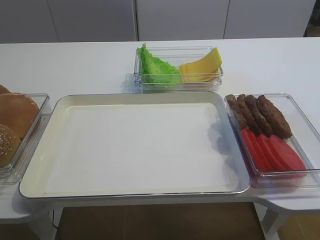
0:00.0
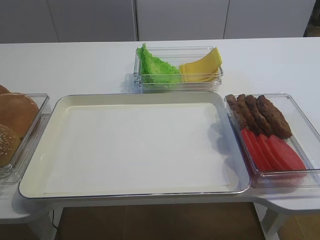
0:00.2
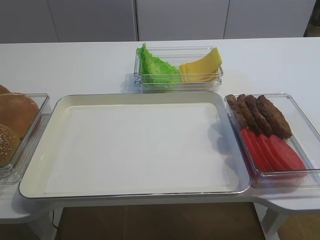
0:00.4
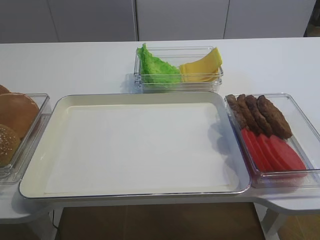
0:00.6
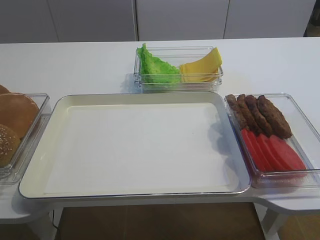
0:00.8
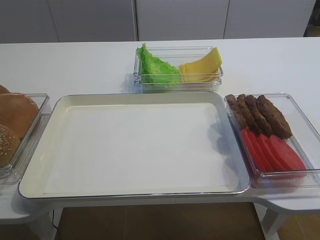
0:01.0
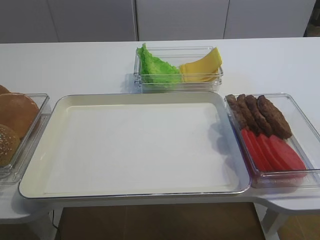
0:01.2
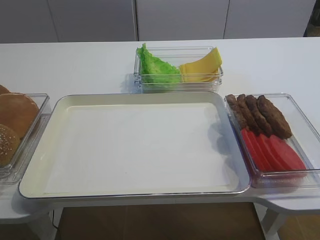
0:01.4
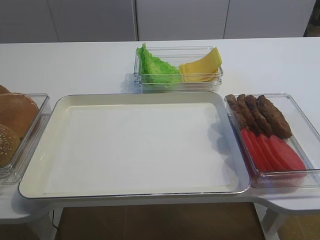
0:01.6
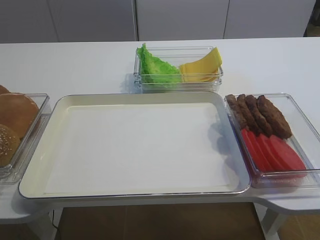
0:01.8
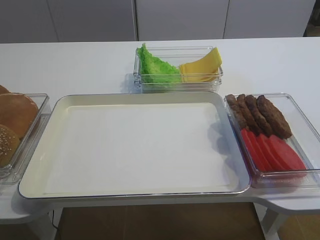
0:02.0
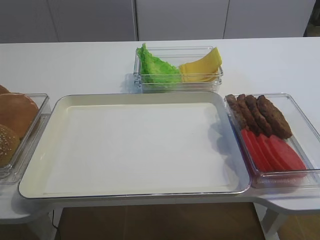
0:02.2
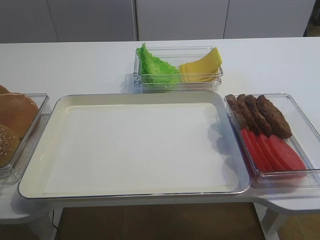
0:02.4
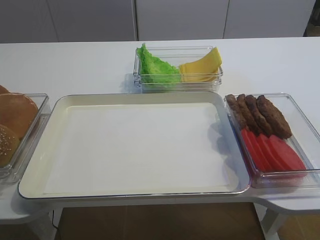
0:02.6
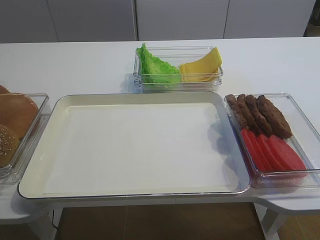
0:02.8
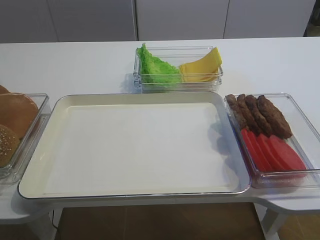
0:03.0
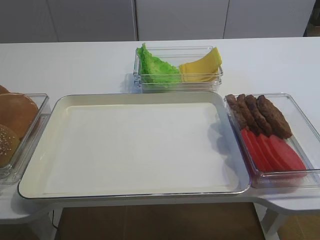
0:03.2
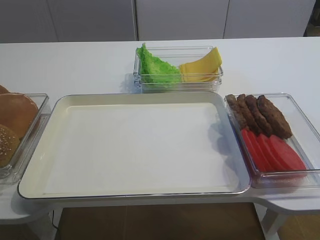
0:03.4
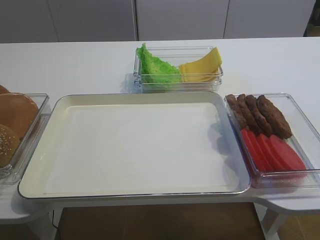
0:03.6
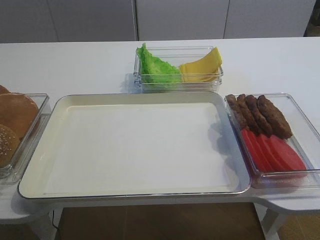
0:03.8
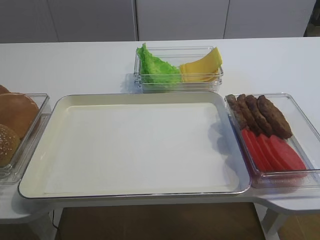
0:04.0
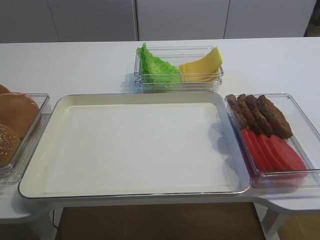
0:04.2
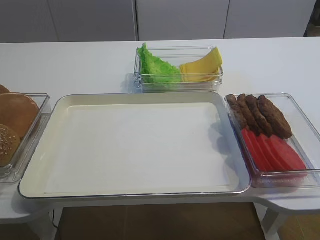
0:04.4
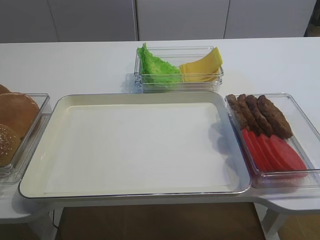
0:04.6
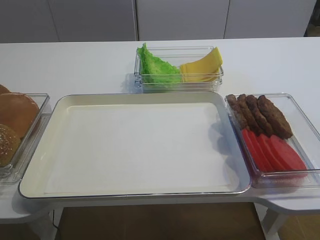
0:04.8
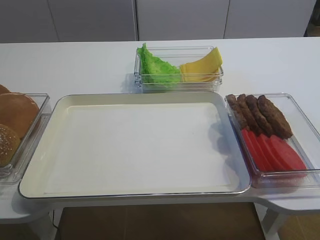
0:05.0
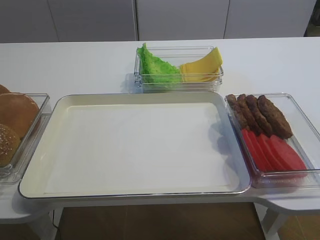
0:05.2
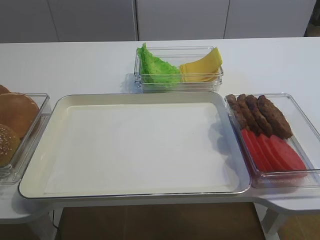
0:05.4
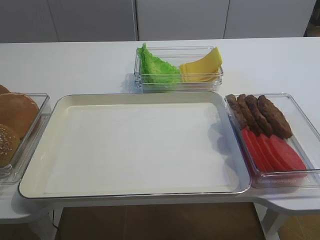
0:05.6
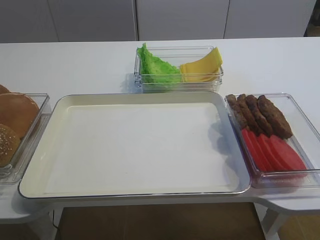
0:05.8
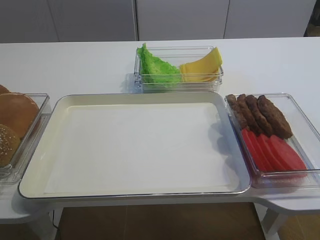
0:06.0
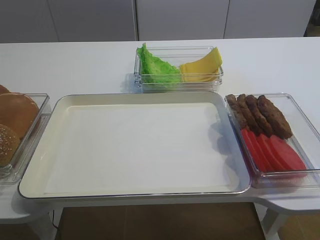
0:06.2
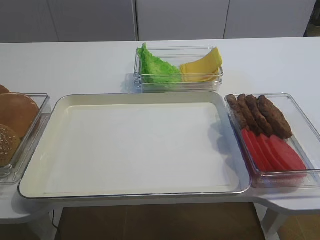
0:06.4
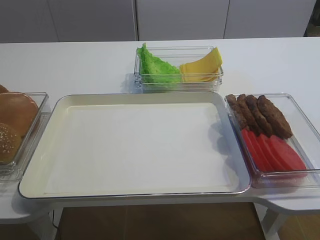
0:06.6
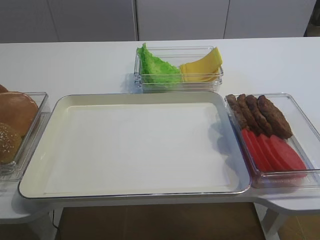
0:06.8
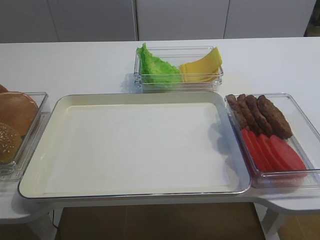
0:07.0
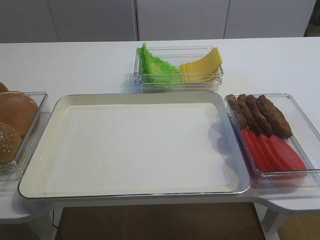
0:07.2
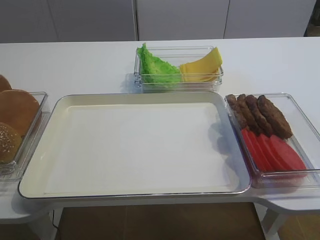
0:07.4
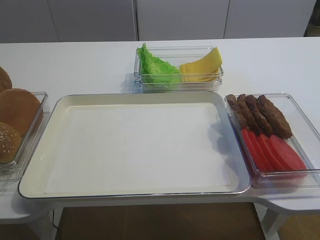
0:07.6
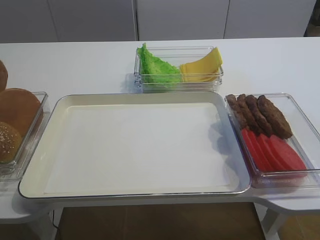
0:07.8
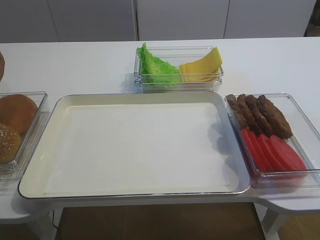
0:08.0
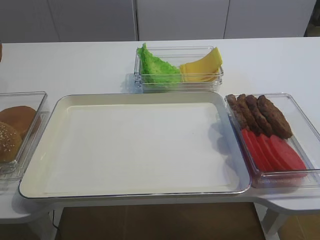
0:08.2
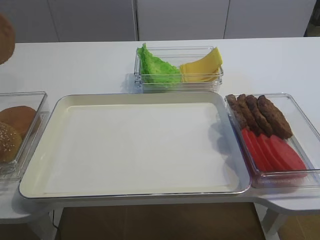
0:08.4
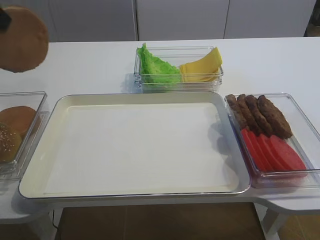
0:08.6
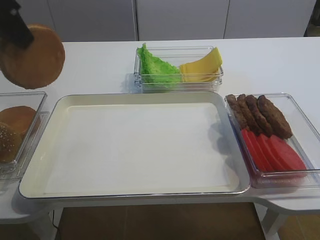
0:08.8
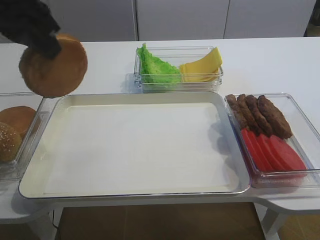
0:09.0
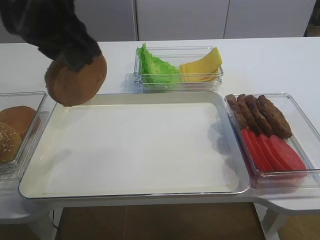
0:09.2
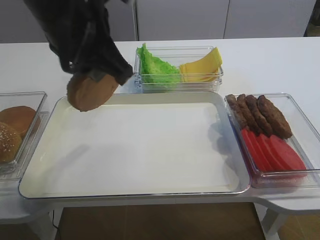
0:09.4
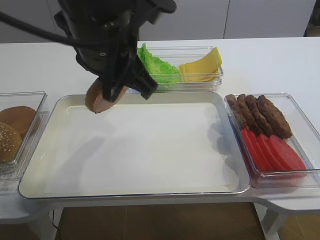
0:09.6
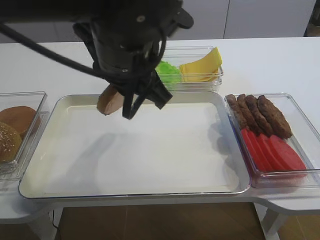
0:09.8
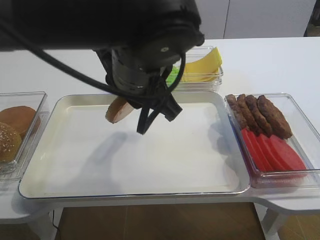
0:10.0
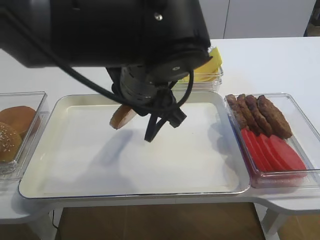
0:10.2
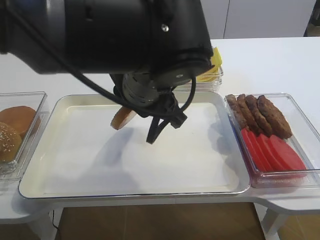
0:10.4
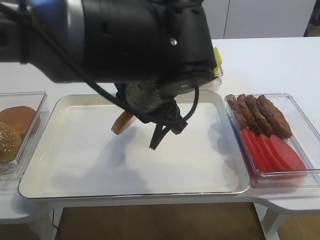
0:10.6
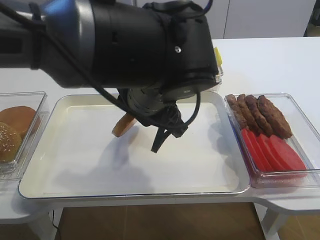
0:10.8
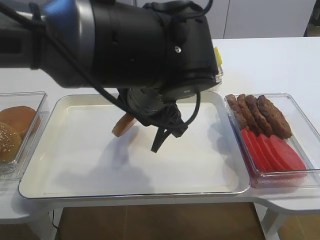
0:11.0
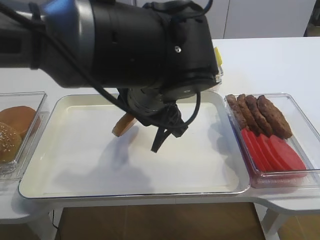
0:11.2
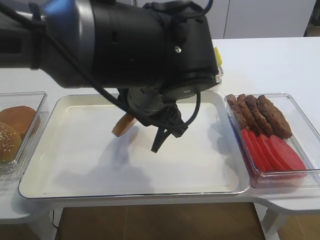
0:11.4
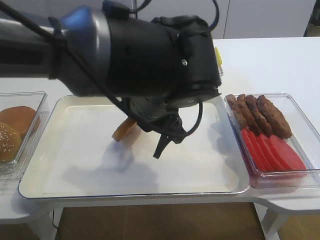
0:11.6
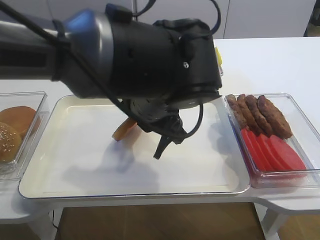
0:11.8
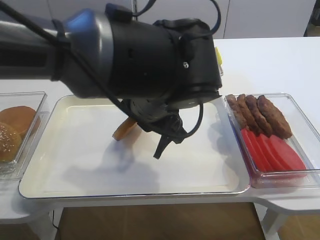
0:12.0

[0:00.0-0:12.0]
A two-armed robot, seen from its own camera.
0:06.0 to 0:07.6: The left gripper closes.
0:07.6 to 0:09.0: The left gripper moves to the right, upward and backward, roughly 20 cm.
0:09.0 to 0:10.4: The left gripper heads to the right and downward, covering some 20 cm.

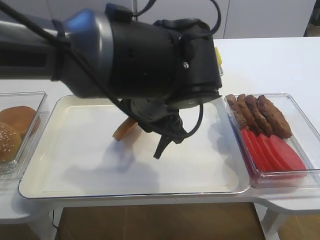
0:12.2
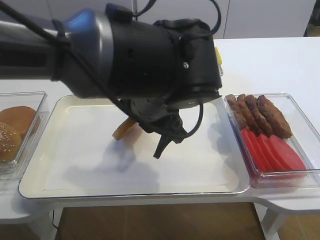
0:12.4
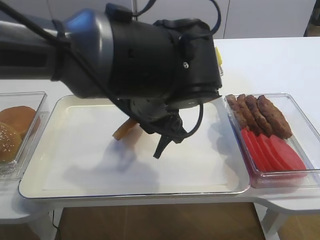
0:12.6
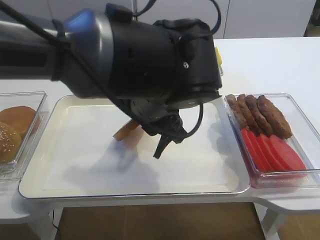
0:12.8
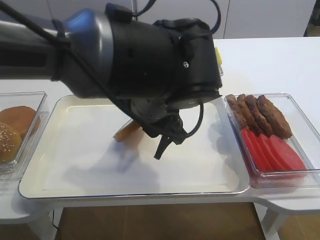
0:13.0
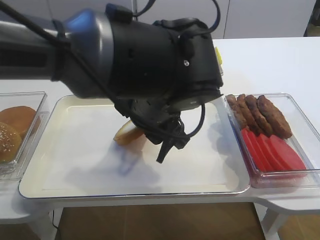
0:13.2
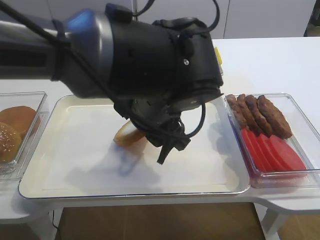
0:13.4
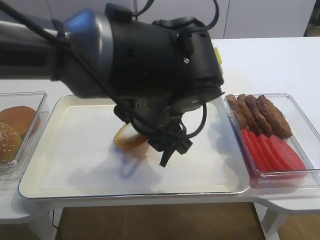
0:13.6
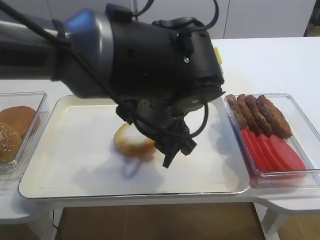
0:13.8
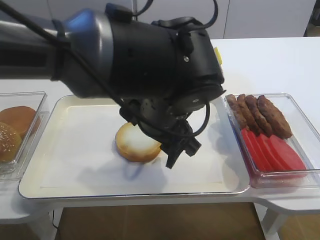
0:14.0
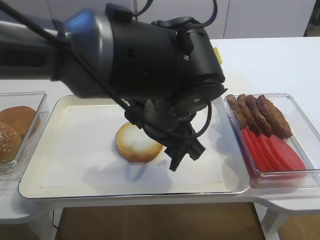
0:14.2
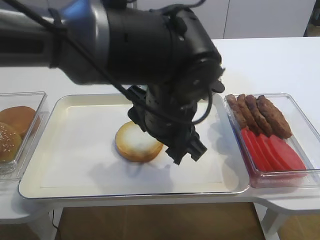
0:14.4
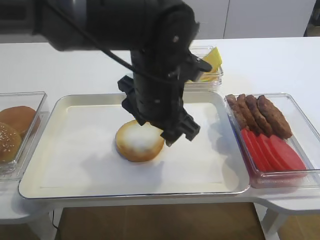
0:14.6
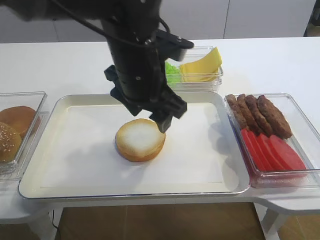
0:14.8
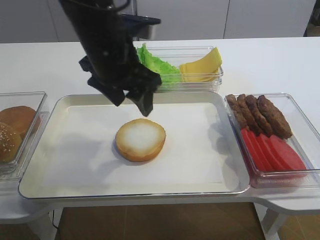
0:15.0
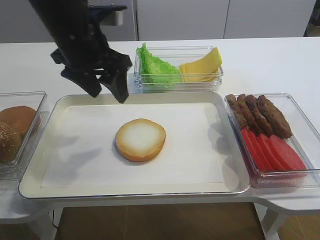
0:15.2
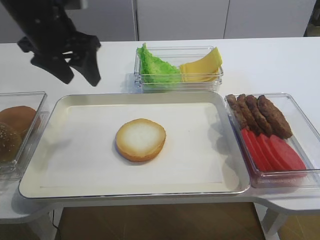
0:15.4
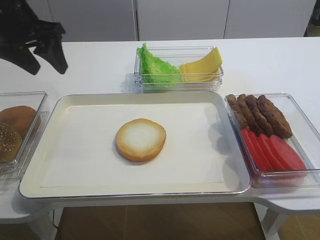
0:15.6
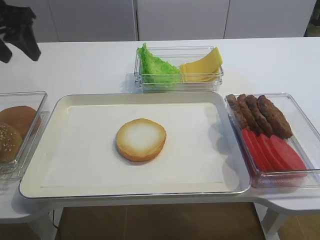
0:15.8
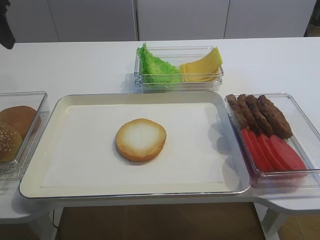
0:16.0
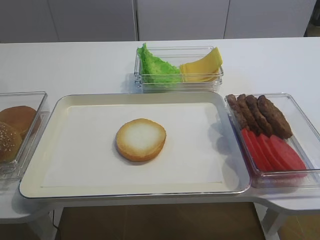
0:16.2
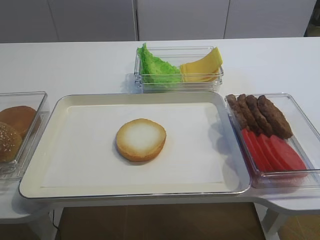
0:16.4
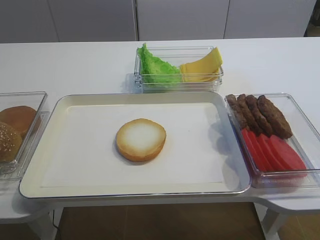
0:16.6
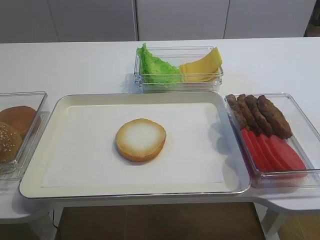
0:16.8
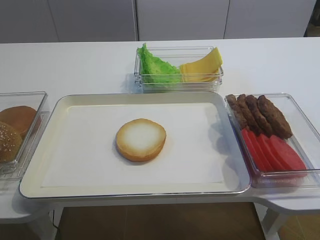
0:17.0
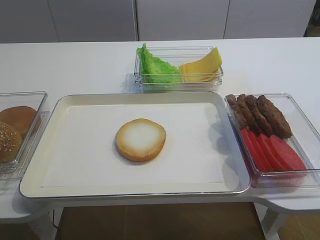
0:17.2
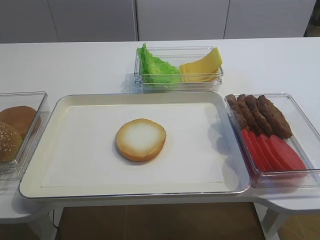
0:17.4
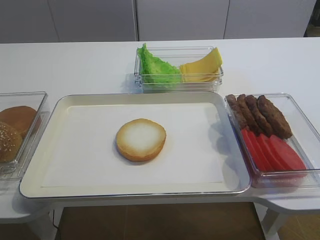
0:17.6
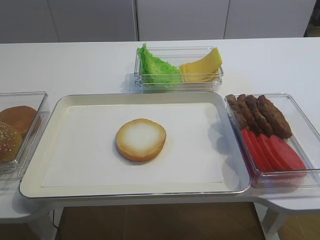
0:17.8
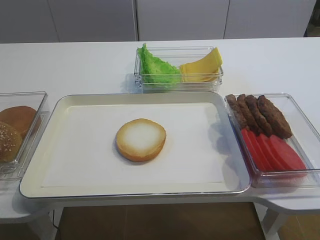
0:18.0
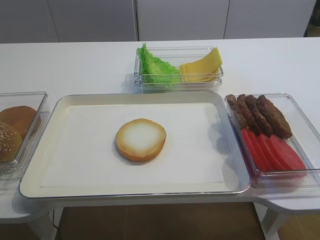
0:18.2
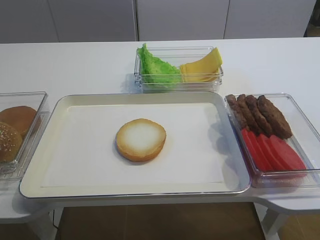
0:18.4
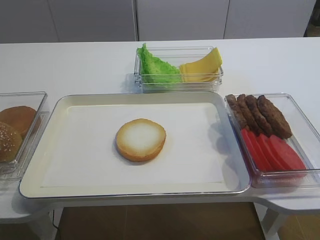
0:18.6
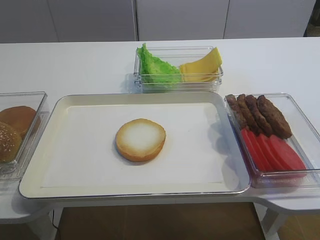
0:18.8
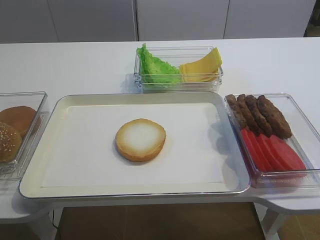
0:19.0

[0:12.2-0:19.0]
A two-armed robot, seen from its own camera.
0:12.2 to 0:13.6: The left gripper opens its fingers.
0:13.6 to 0:15.0: The left gripper heads to the left and forward, covering approximately 10 cm.
0:15.0 to 0:16.2: The left gripper is displaced to the left by approximately 25 cm.
